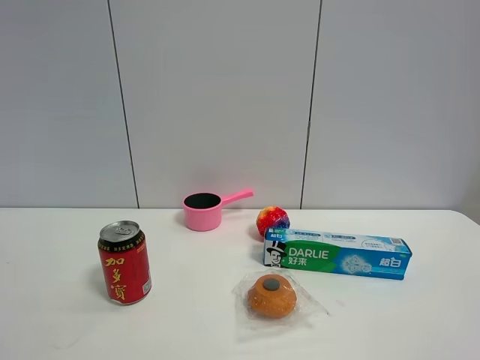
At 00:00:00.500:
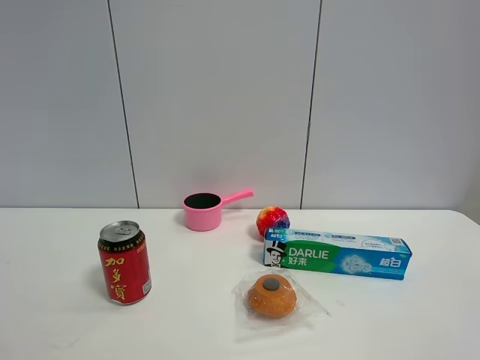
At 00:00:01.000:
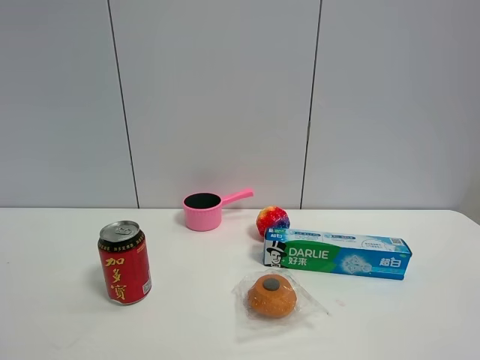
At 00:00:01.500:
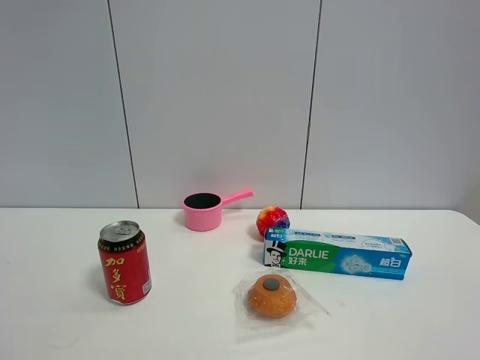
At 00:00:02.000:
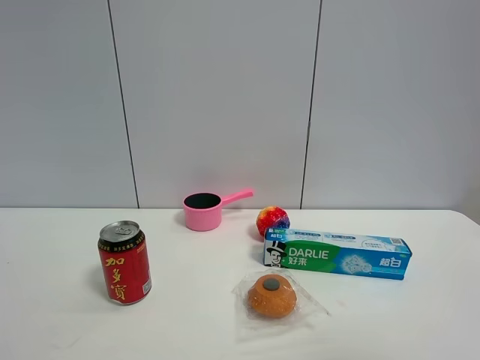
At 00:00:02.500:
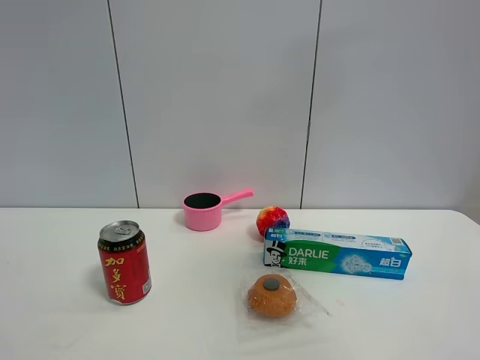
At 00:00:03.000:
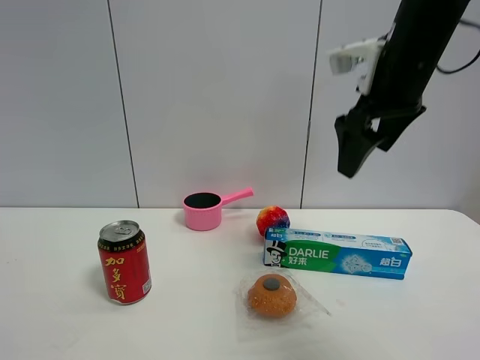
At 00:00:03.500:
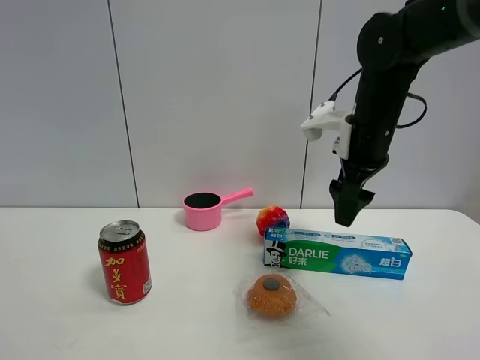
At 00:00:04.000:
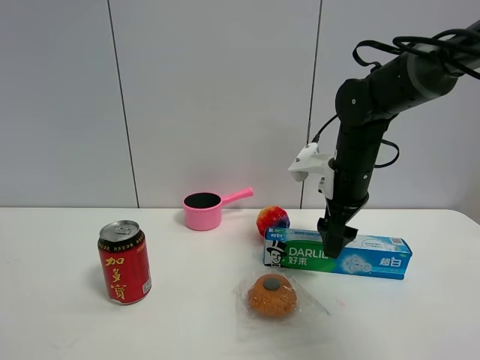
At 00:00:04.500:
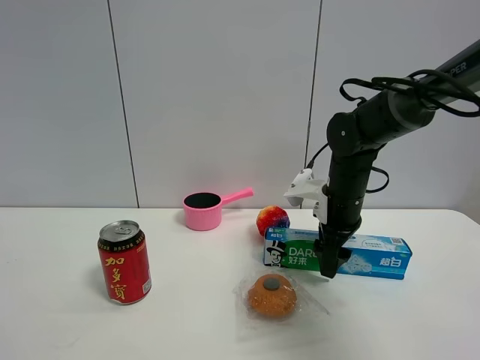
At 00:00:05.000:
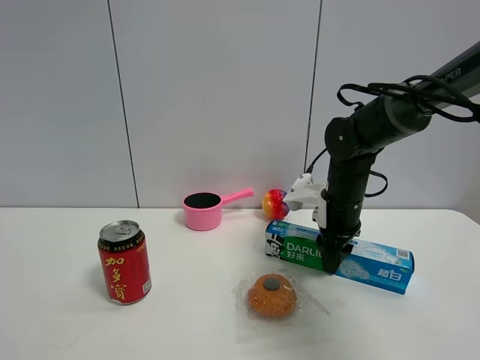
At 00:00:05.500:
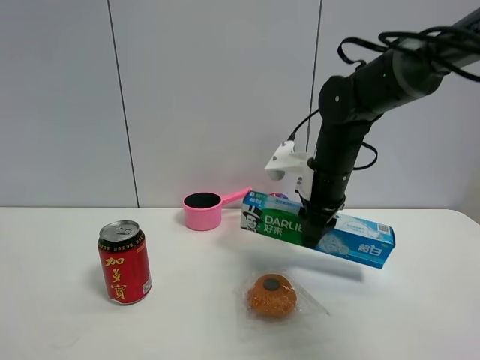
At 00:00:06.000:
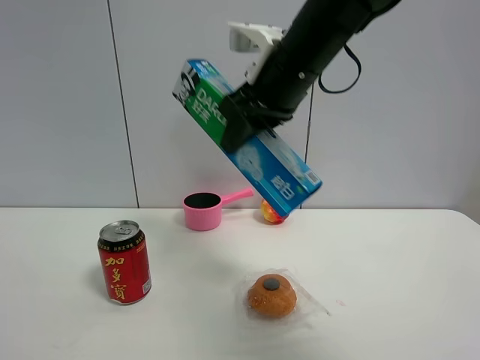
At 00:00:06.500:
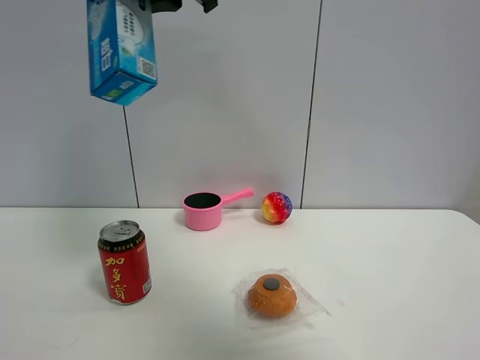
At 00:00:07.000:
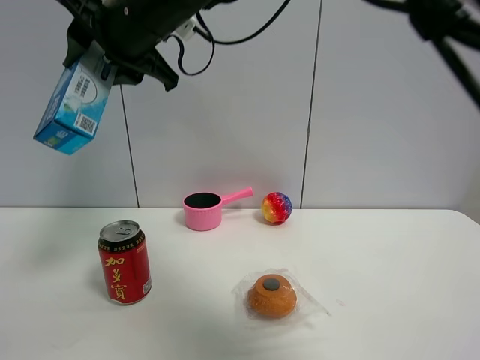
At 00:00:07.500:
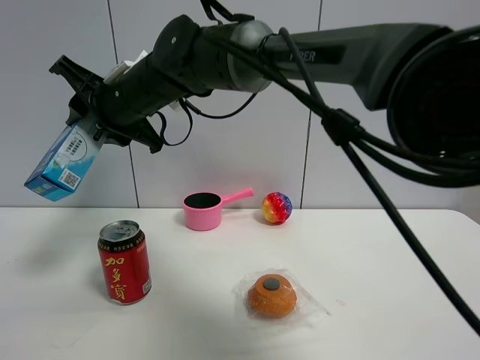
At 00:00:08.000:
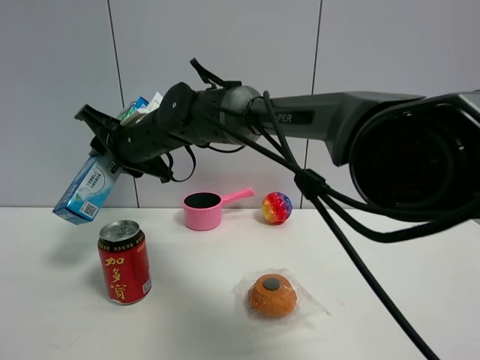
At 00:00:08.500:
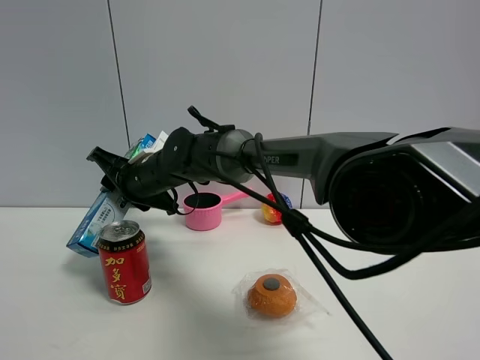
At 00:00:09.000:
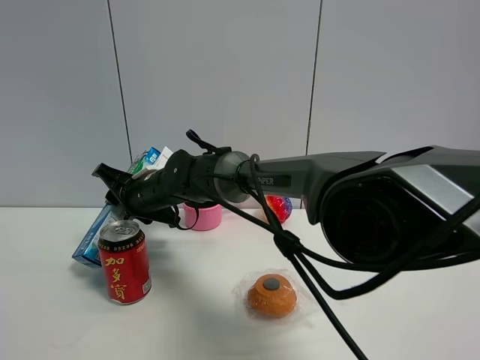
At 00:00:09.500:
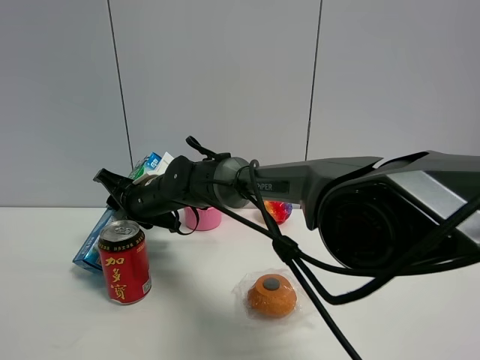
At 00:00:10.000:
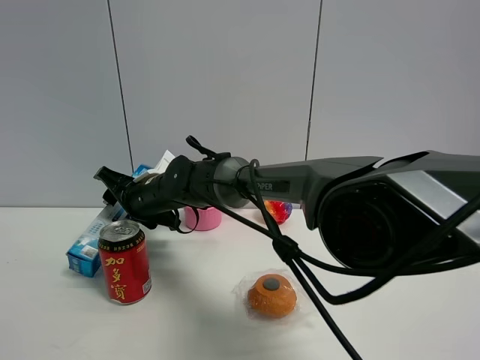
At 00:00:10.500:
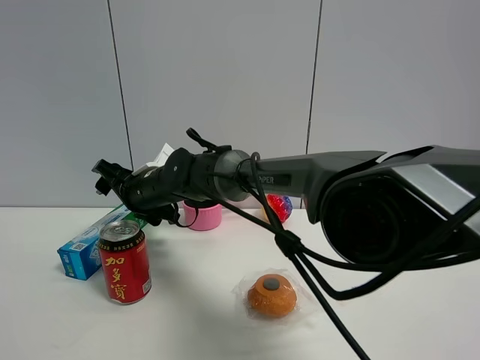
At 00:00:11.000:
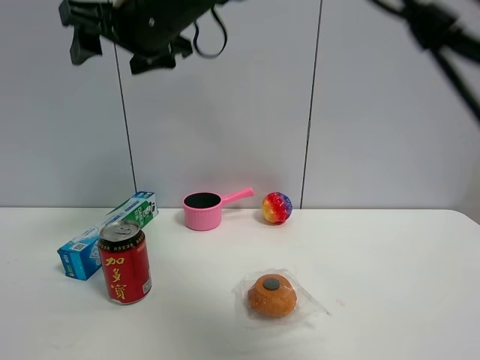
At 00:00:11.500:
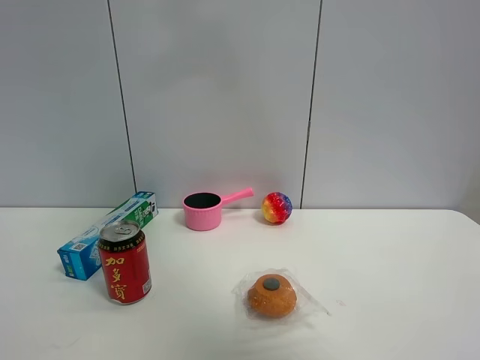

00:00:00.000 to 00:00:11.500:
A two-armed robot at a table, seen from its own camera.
Task of the whole recording: the gripper move the object.
Step, 00:00:00.000 to 00:00:04.500: Grasp the toothpaste with the right gripper.
Step, 00:00:05.000 to 00:00:10.000: Place the toothpaste on the table with the right gripper.
00:00:02.000 to 00:00:04.000: The right gripper shifts roughly 40 cm forward and downward.
00:00:04.000 to 00:00:06.000: The right gripper goes about 20 cm upward, to the left and backward, and closes up.
00:00:06.000 to 00:00:07.500: The right gripper travels to the left by some 20 cm.
00:00:07.500 to 00:00:09.500: The right gripper shifts approximately 15 cm downward.
00:00:09.500 to 00:00:11.500: The right gripper shifts roughly 35 cm upward, and opens its fingers.

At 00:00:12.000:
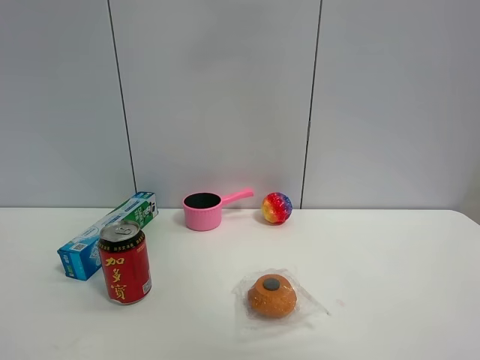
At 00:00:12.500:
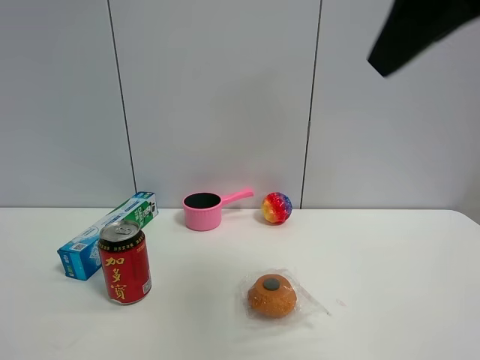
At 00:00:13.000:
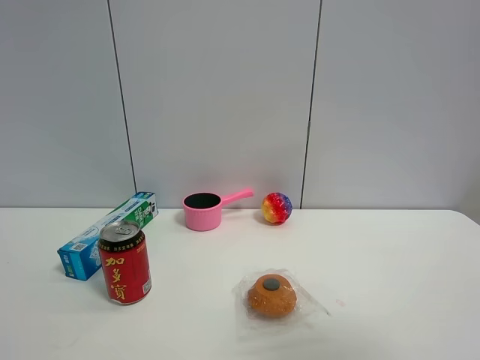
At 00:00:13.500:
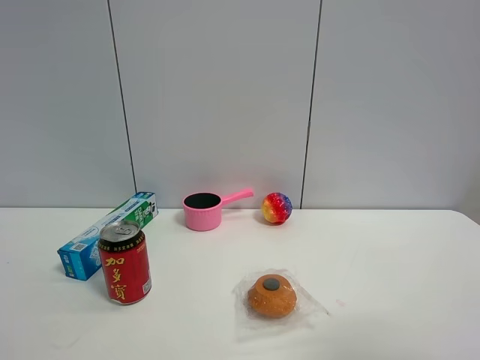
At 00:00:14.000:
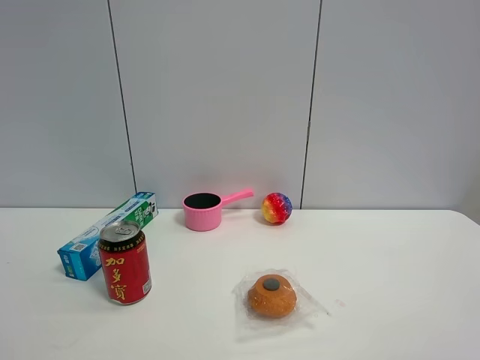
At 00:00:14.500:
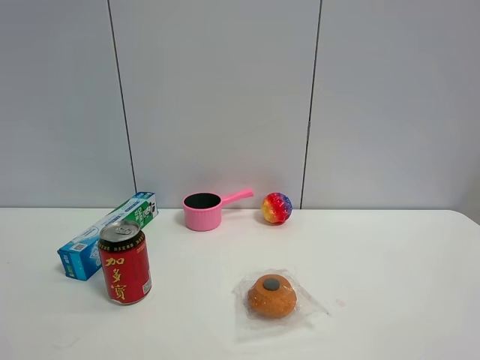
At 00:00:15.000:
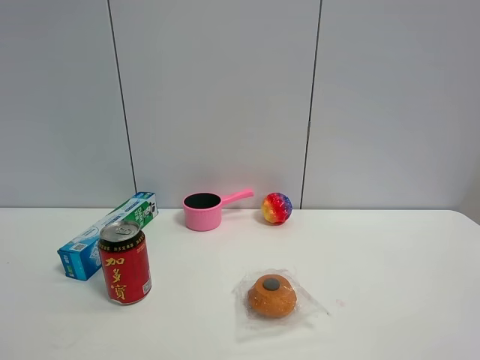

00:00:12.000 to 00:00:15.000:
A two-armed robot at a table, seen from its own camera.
Task of the whole recording: the gripper move the object.
00:00:12.000 to 00:00:13.500: The right gripper heads downward, to the right and backward, covering some 35 cm.

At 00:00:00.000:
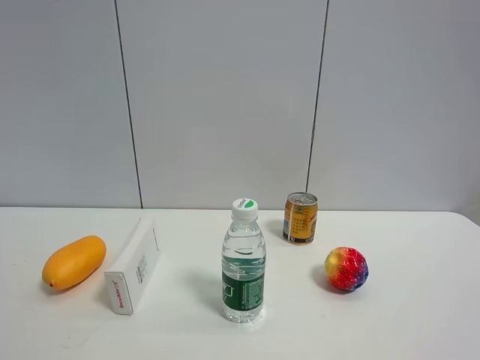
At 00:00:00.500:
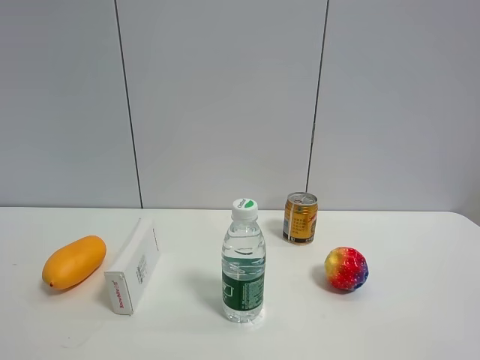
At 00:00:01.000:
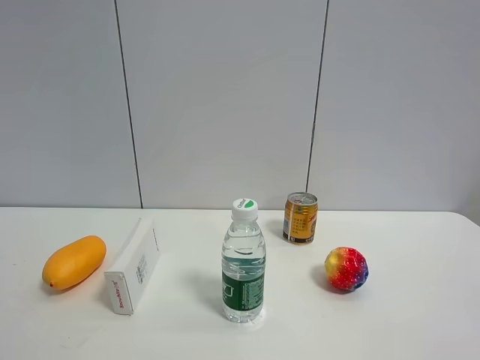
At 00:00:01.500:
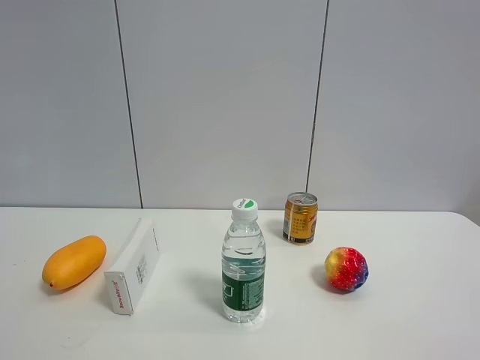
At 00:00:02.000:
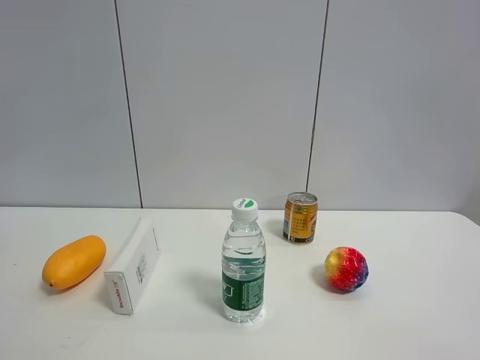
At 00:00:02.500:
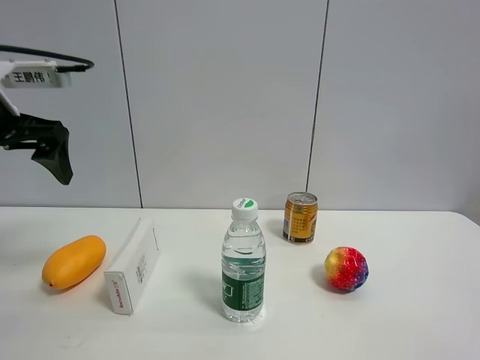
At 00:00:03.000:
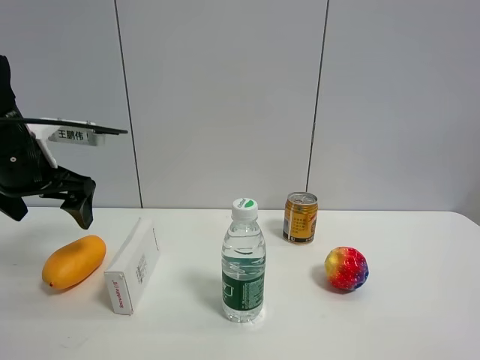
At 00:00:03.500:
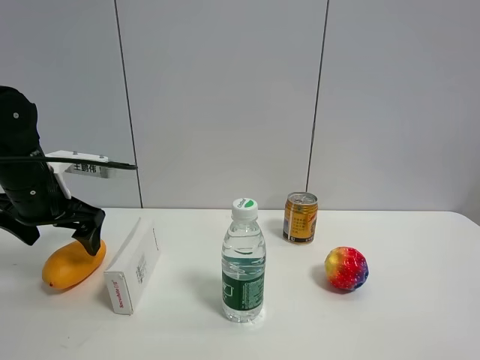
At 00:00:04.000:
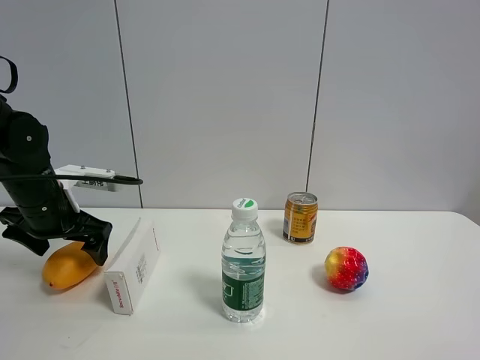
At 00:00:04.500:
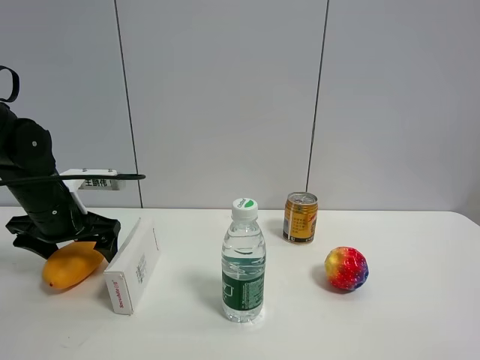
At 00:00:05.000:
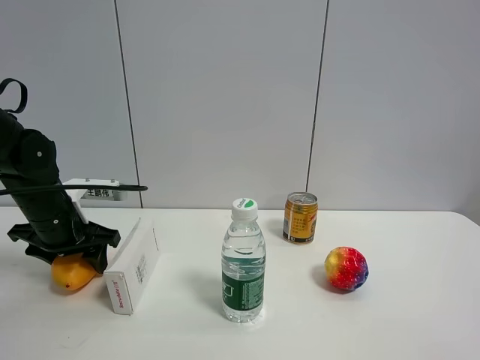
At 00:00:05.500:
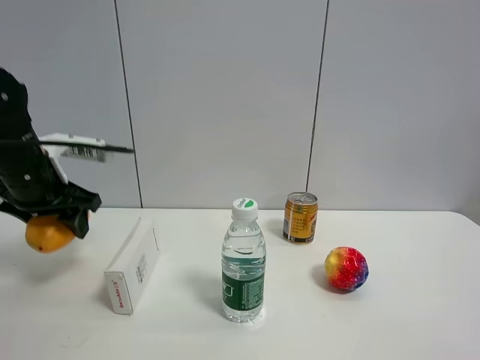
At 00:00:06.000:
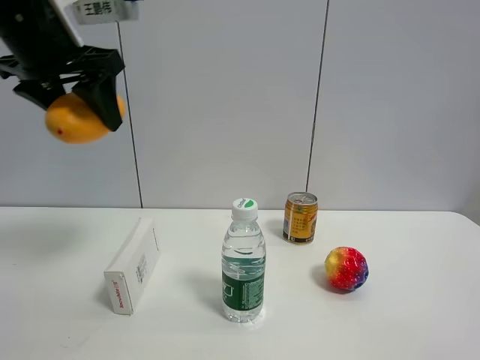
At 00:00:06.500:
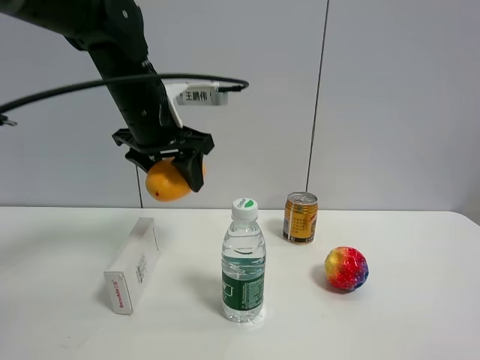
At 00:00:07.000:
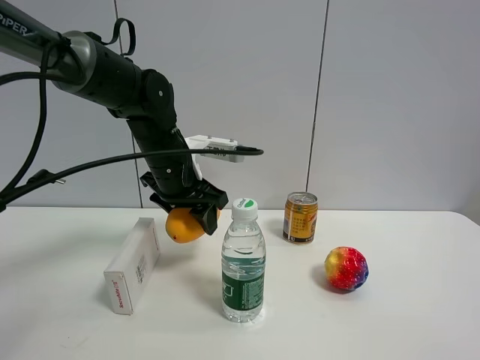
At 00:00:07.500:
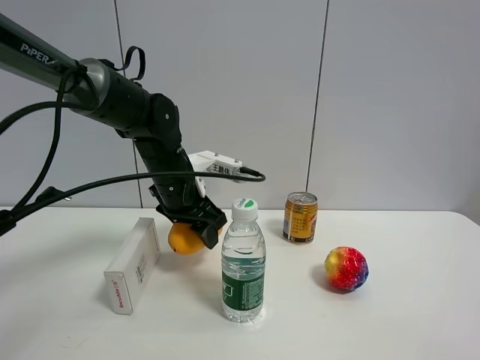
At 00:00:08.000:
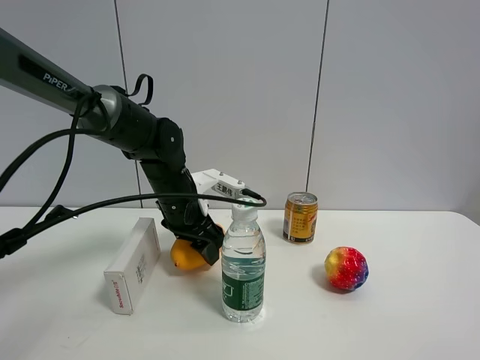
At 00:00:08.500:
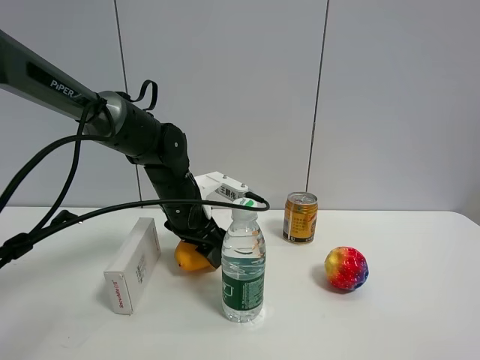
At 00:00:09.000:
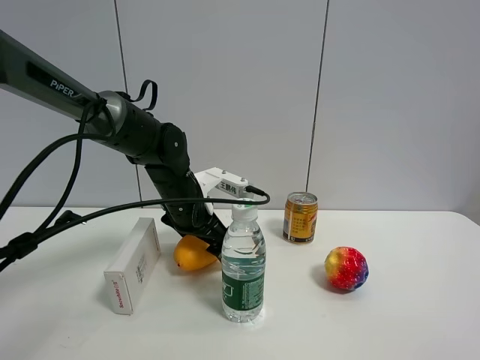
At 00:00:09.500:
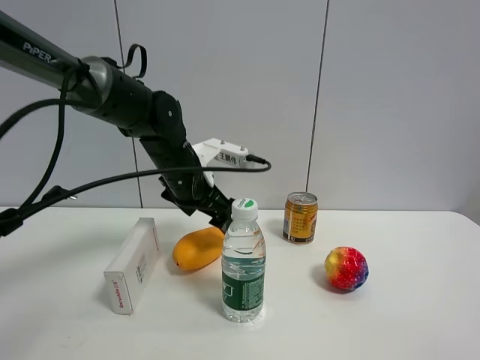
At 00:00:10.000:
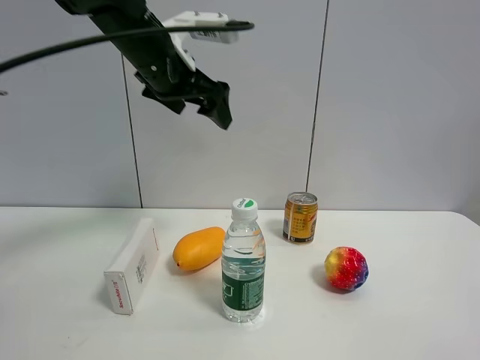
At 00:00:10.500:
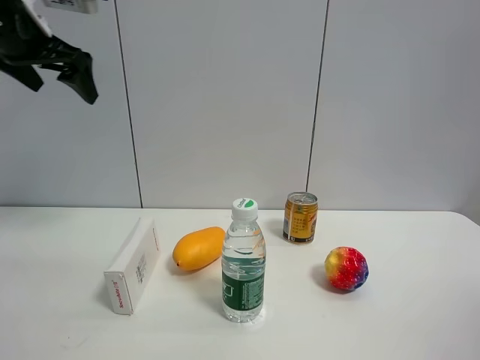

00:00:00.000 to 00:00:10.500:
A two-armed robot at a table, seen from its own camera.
Task of the whole recording: the gripper move the object.
Step, 00:00:00.000 to 00:00:04.500: Grasp the mango with the left gripper.
Step, 00:00:05.000 to 00:00:09.000: Place the mango on the table with the left gripper.
00:00:02.000 to 00:00:04.000: The left gripper heads downward and forward, covering approximately 30 cm.
00:00:04.000 to 00:00:06.500: The left gripper travels to the right and upward by some 20 cm, and closes up.
00:00:06.500 to 00:00:08.500: The left gripper is displaced downward by some 15 cm.
00:00:08.500 to 00:00:10.500: The left gripper shifts roughly 30 cm upward and to the left, and opens up.
